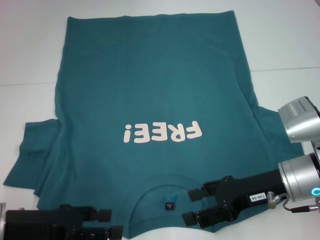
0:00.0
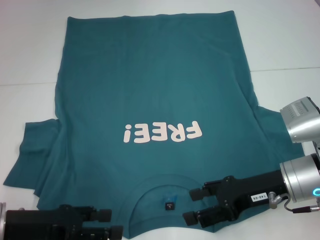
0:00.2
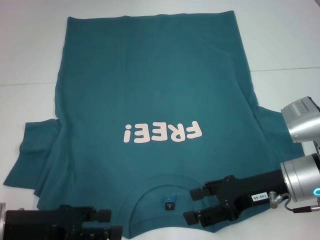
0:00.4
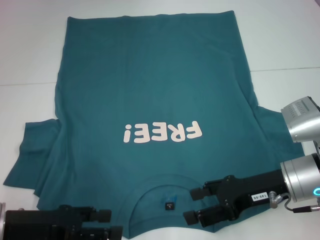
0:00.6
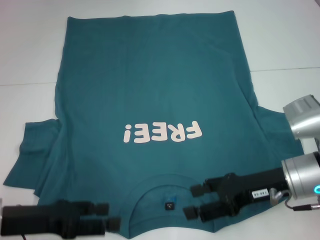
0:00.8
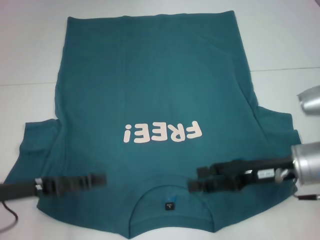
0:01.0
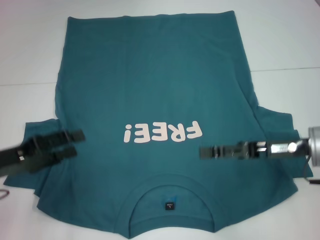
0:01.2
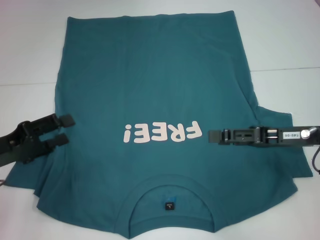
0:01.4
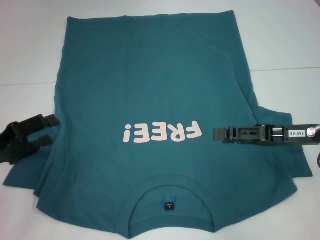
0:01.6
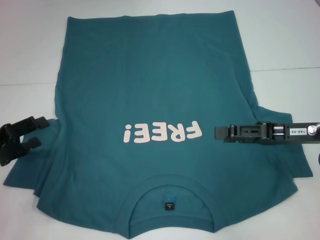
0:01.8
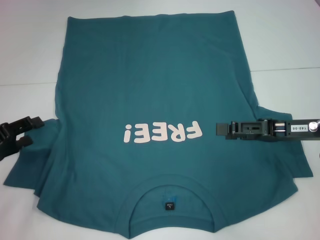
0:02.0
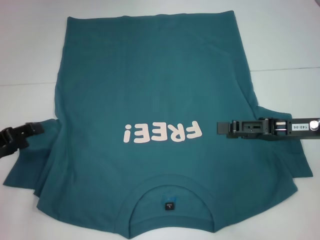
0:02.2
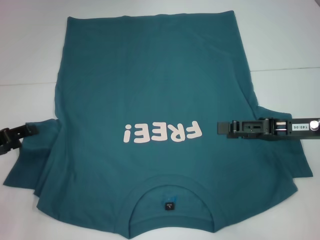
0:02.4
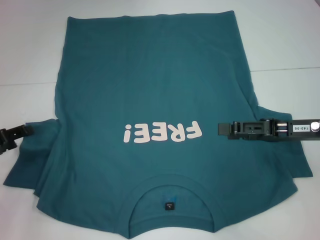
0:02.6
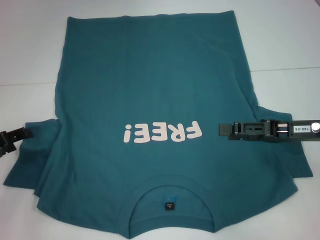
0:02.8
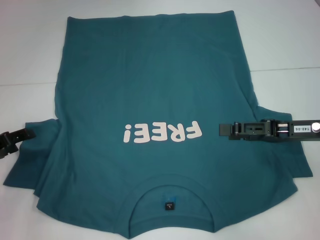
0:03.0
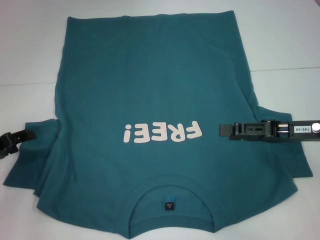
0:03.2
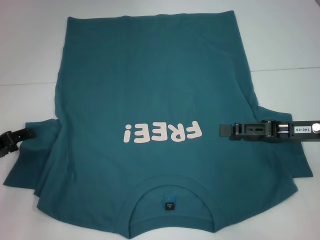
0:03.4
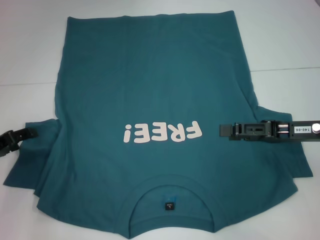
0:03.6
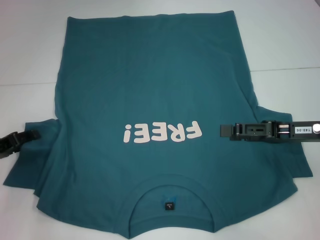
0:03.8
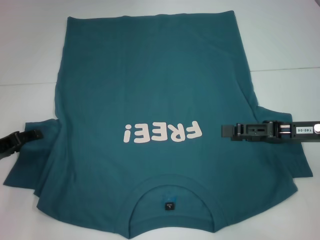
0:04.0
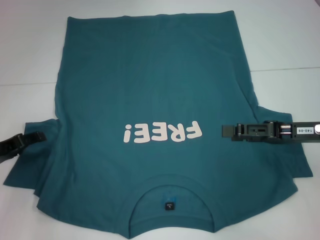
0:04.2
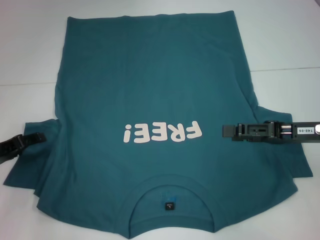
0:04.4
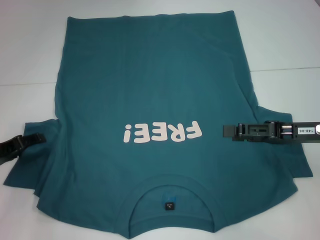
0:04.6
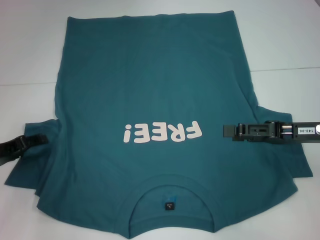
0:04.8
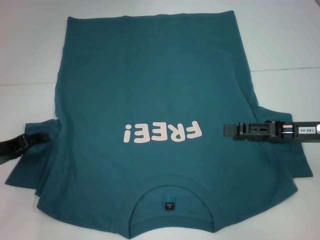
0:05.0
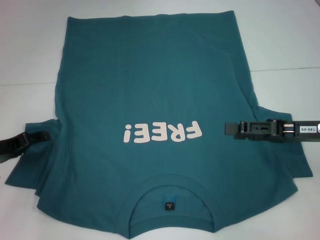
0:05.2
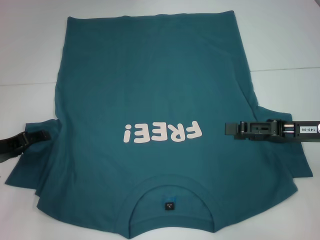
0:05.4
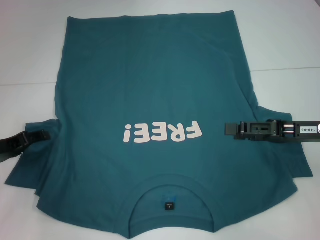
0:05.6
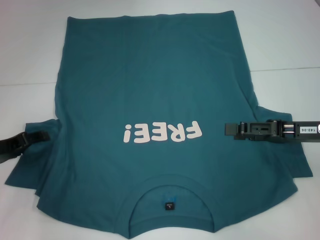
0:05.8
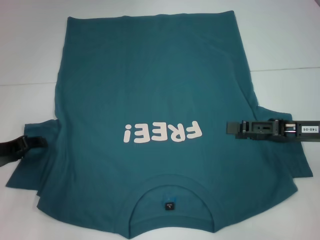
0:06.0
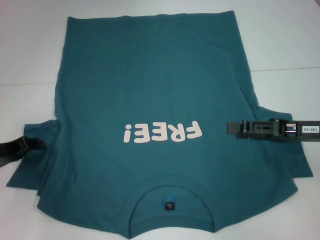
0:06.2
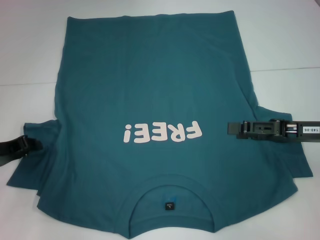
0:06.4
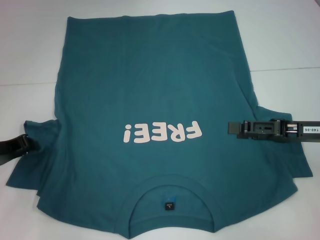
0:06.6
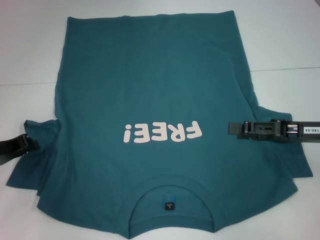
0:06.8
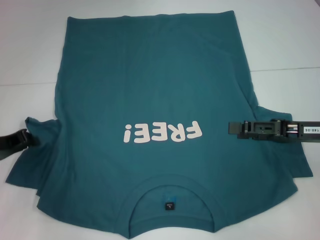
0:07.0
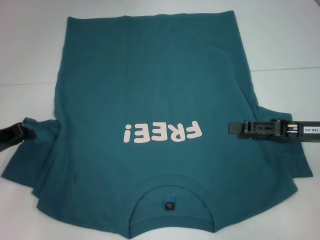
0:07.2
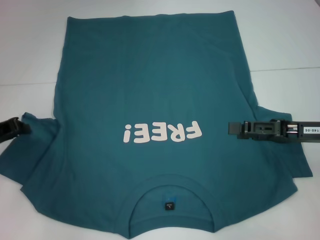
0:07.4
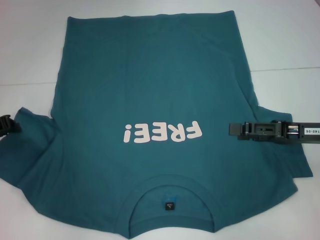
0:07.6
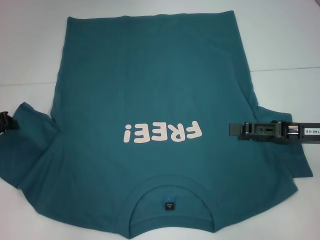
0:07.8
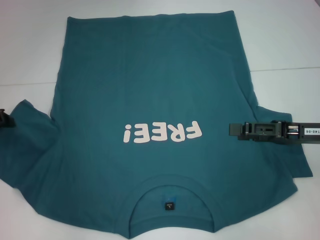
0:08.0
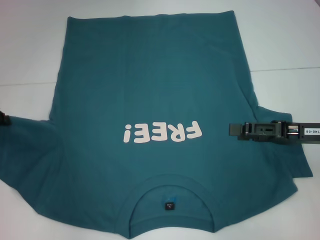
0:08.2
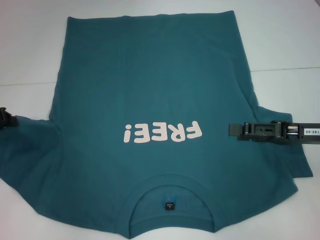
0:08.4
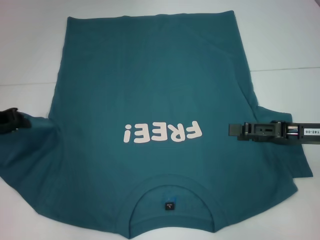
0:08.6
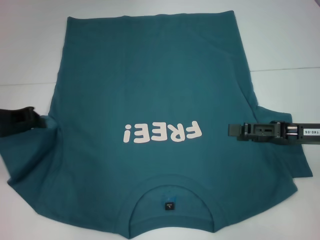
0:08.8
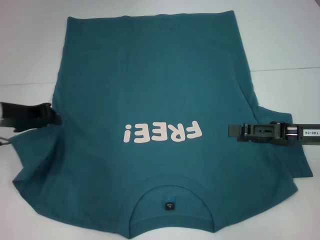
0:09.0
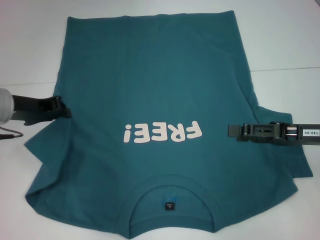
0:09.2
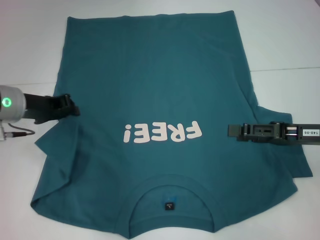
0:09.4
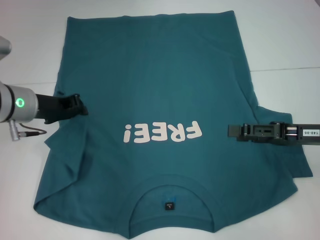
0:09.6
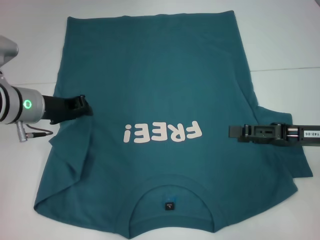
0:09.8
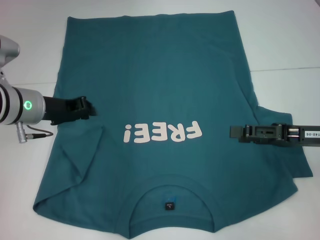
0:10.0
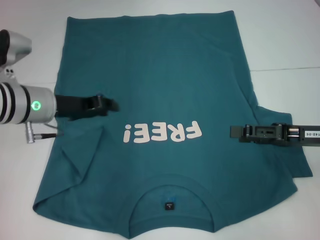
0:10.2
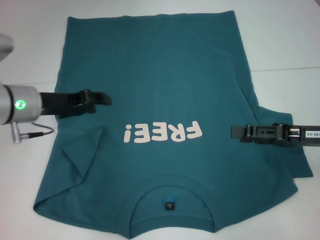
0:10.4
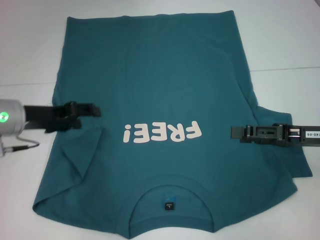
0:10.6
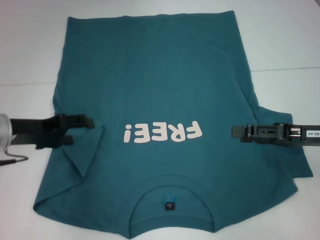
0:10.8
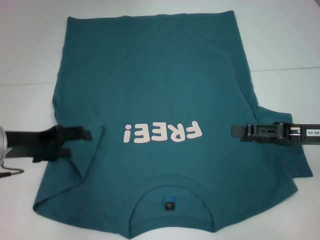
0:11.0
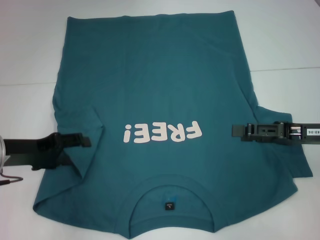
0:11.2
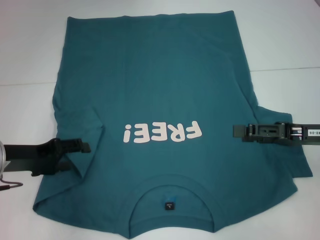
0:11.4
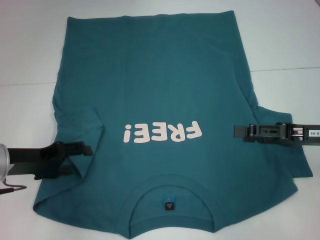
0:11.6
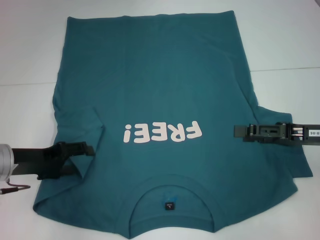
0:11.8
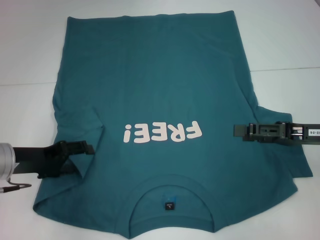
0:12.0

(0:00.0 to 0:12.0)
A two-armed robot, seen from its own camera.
0:00.0 - 0:01.6: The right gripper travels to the right by about 5 cm. The left gripper shifts about 5 cm to the left.
0:03.0 - 0:06.0: The grippers make only small movements.
0:06.0 - 0:07.6: The left gripper closes up.
0:07.6 - 0:09.0: The left gripper is displaced to the right by about 5 cm.
0:09.0 - 0:10.4: The left gripper changes place by roughly 5 cm, and opens.
0:10.4 - 0:12.0: The left gripper travels backward and downward by approximately 10 cm, and opens up.

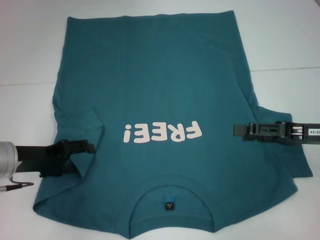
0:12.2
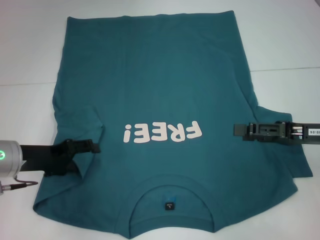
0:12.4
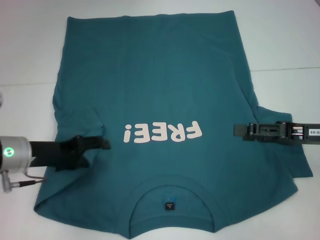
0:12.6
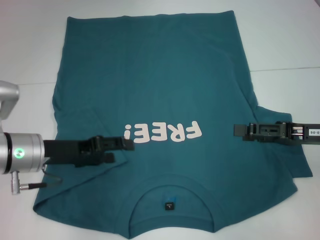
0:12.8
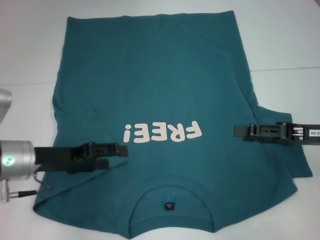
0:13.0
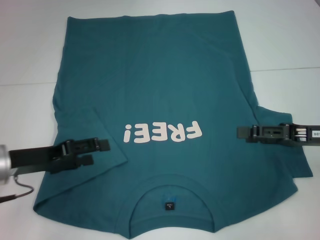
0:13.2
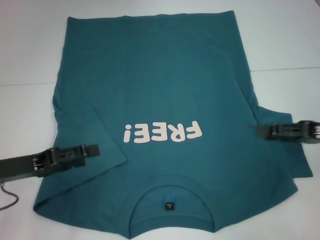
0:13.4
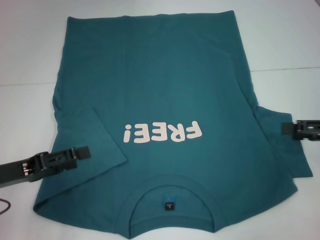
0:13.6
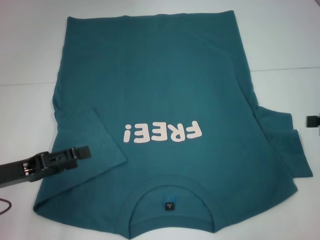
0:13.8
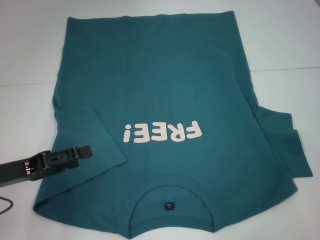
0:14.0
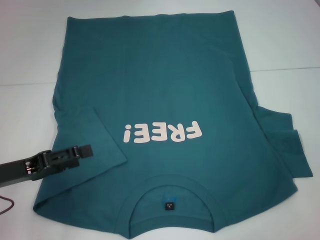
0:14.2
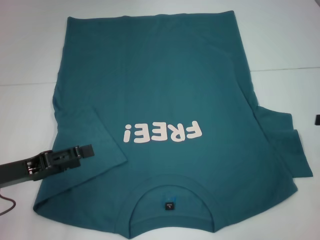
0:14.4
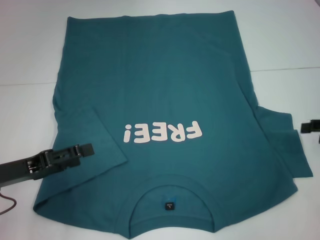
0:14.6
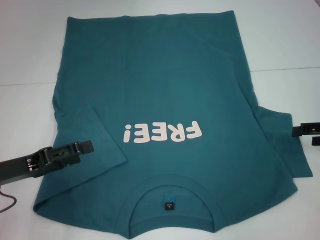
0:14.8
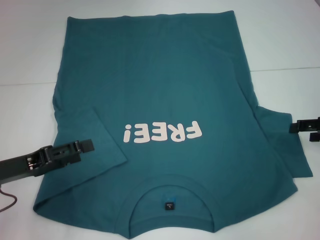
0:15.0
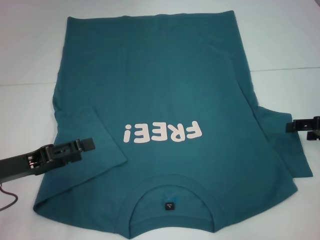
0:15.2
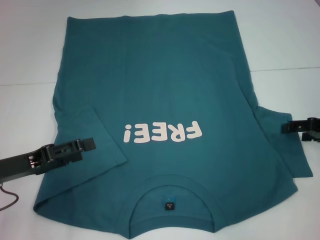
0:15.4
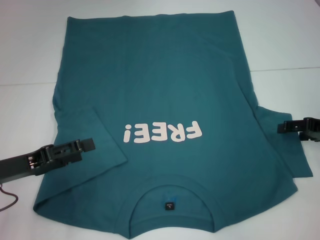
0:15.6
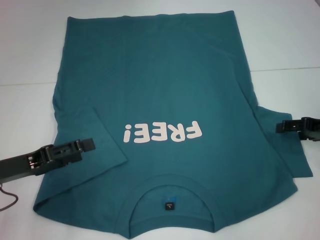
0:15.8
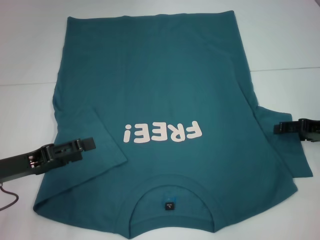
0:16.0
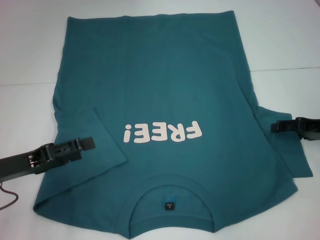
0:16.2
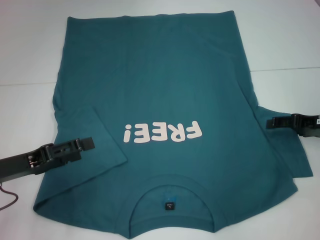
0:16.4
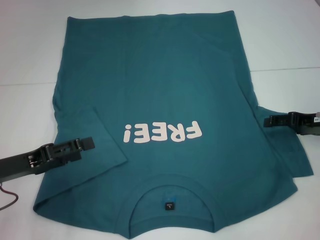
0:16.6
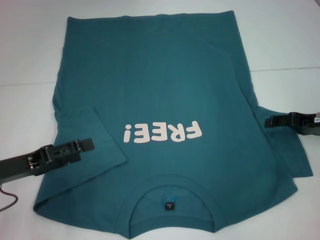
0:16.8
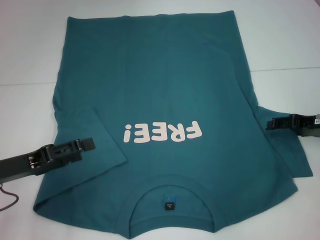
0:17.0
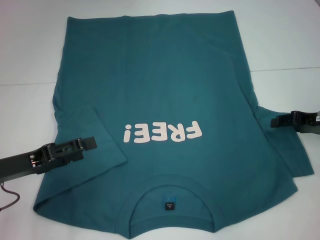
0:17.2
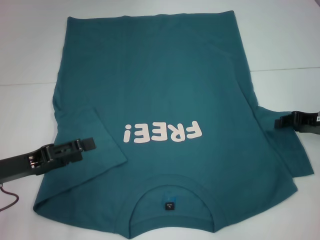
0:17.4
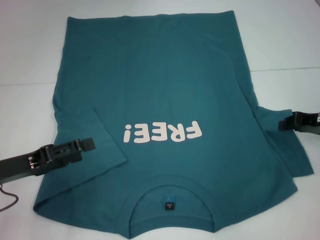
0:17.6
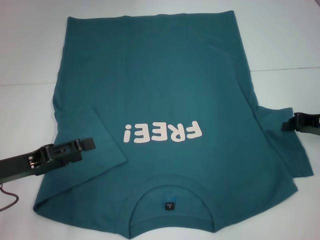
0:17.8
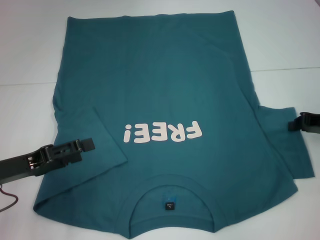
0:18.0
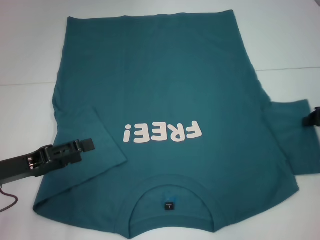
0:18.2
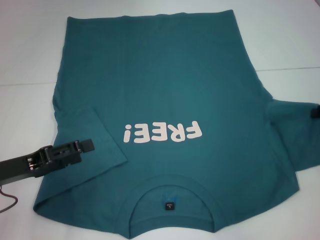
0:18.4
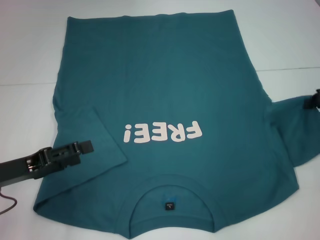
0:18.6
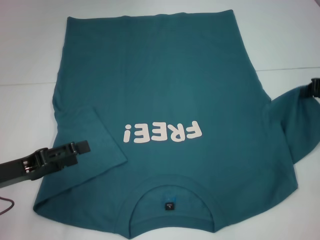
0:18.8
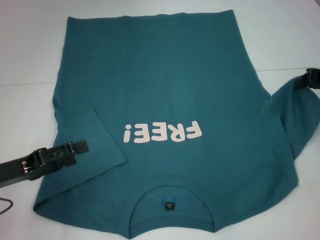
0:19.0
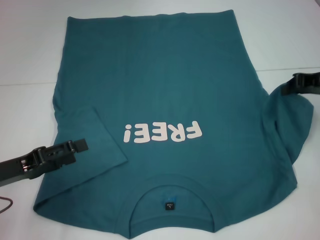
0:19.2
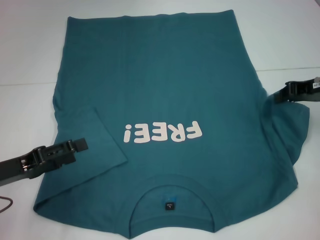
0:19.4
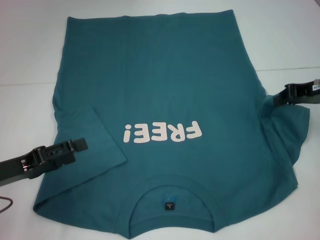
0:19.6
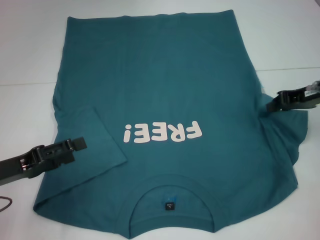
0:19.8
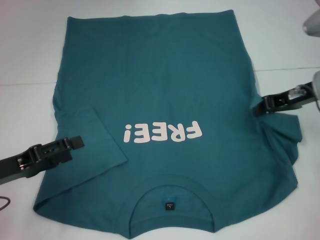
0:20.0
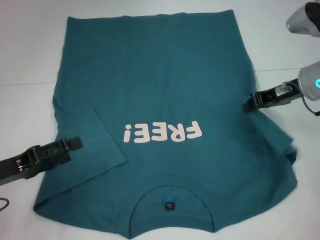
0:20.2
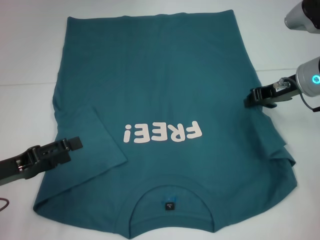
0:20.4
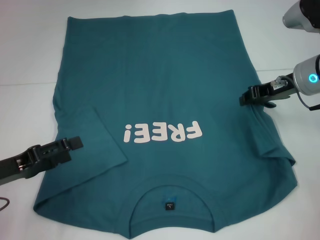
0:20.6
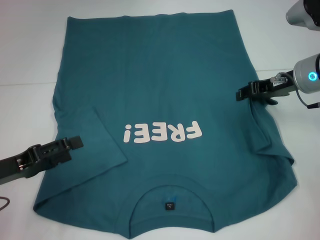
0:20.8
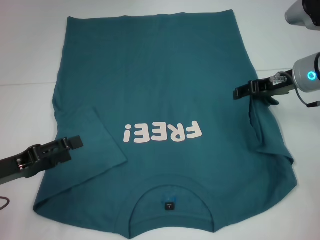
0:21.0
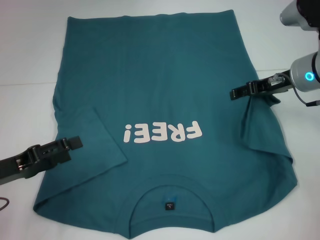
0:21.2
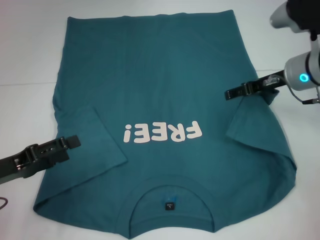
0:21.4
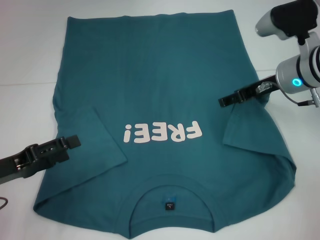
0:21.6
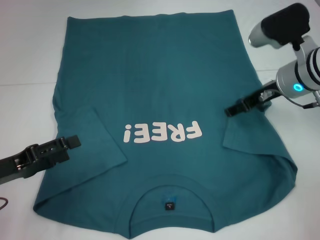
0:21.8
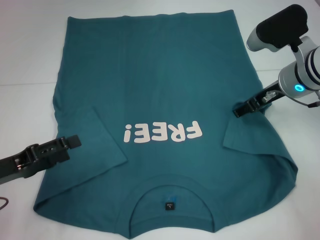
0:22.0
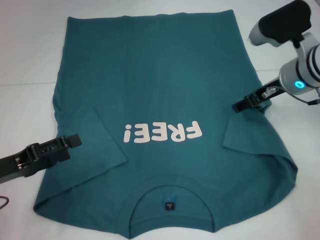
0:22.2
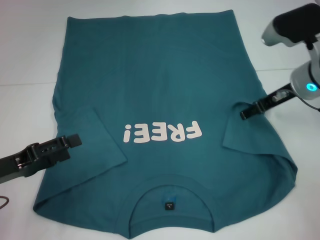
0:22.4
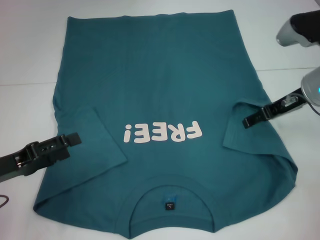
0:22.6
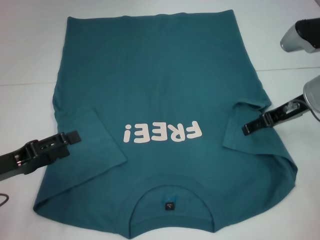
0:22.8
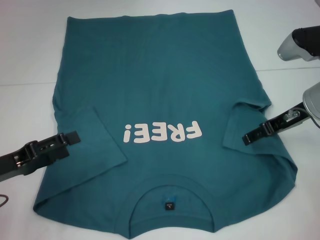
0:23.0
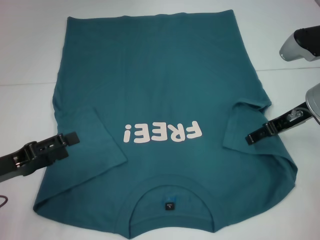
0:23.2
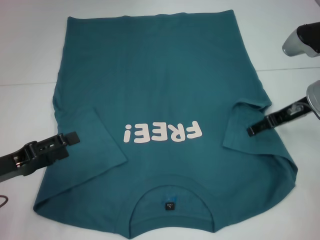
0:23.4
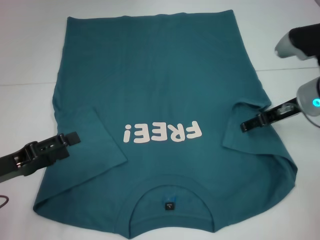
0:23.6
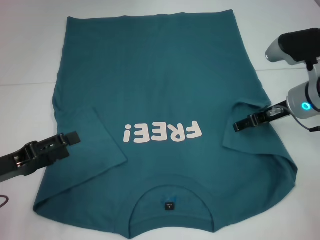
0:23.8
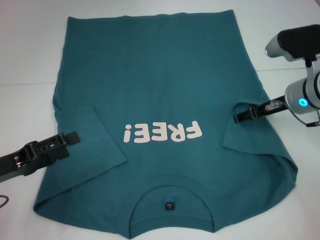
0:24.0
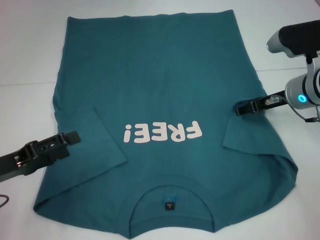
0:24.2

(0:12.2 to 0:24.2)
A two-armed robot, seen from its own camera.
0:12.2 - 0:13.8: The right gripper shifts roughly 10 cm to the right, while the left gripper travels backward by some 5 cm.
0:13.8 - 0:15.2: The right gripper changes place by about 5 cm.
0:15.2 - 0:16.6: The grippers make only small movements.
0:16.6 - 0:18.2: The right gripper closes.
0:18.2 - 0:19.8: The right gripper shifts about 10 cm to the left and upward.
0:19.8 - 0:21.2: The right gripper travels to the left by approximately 5 cm, and opens up.
0:22.6 - 0:24.2: There are only small adjustments of the grippers.
